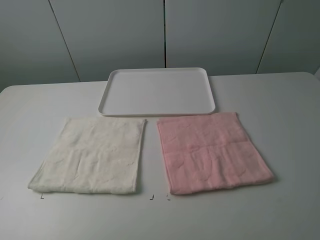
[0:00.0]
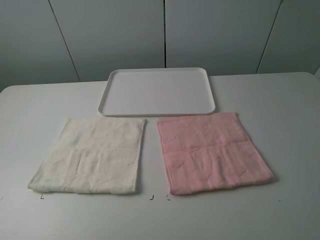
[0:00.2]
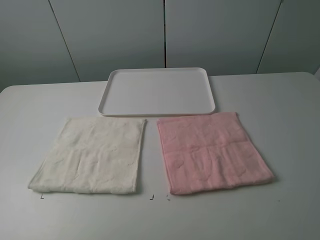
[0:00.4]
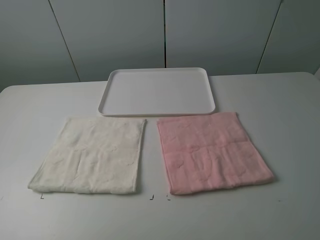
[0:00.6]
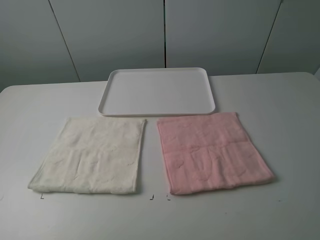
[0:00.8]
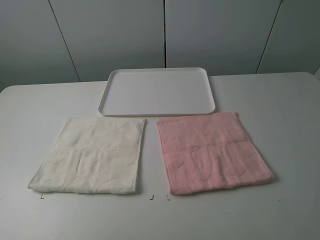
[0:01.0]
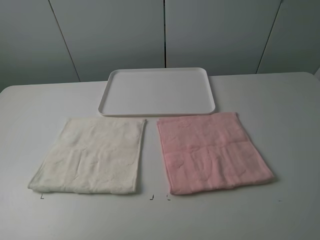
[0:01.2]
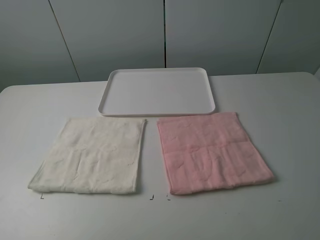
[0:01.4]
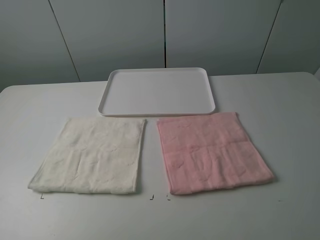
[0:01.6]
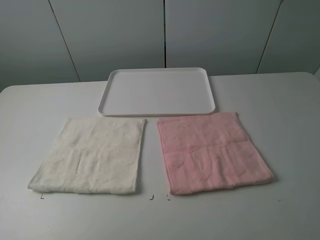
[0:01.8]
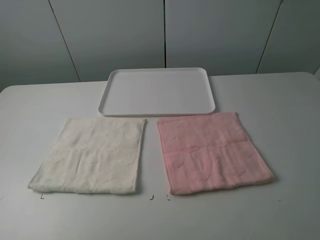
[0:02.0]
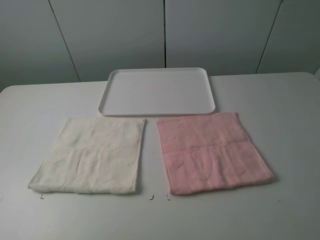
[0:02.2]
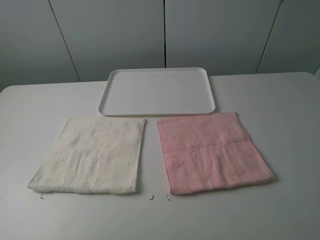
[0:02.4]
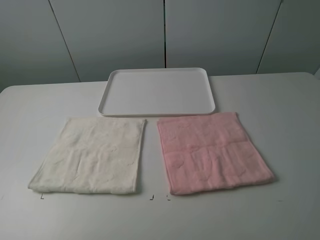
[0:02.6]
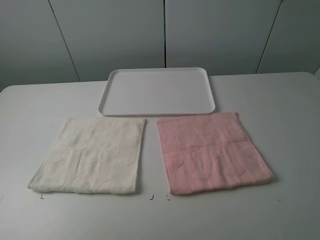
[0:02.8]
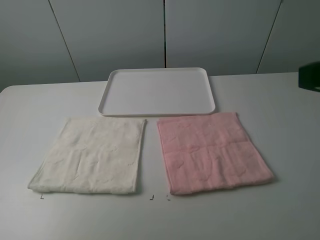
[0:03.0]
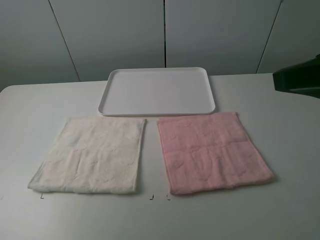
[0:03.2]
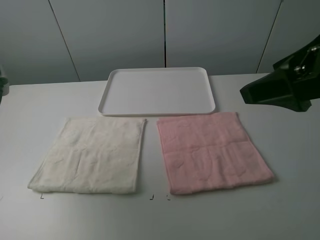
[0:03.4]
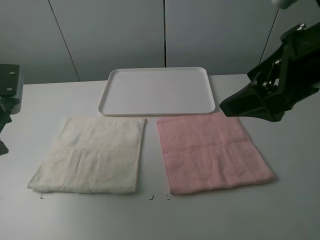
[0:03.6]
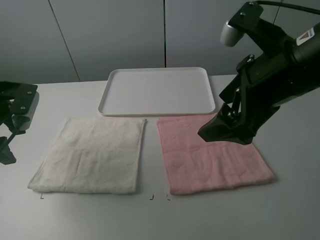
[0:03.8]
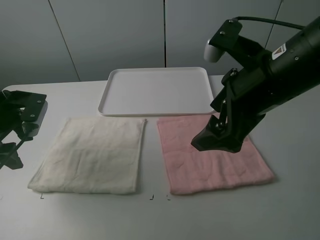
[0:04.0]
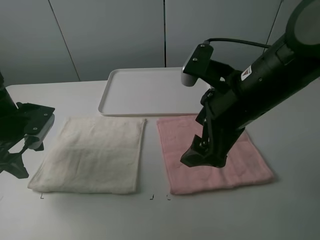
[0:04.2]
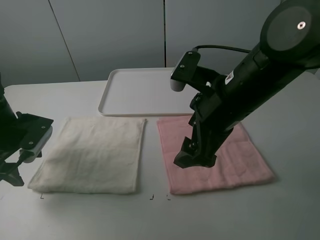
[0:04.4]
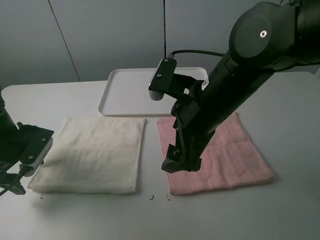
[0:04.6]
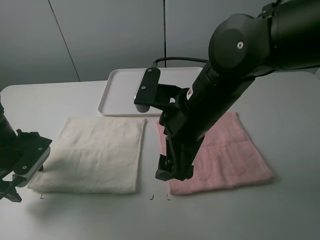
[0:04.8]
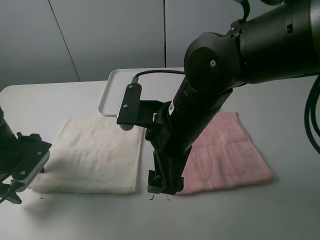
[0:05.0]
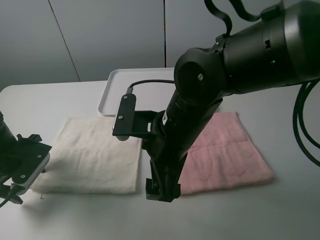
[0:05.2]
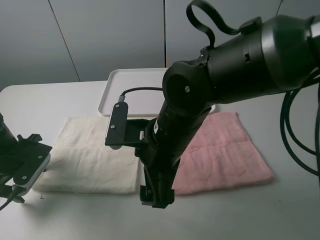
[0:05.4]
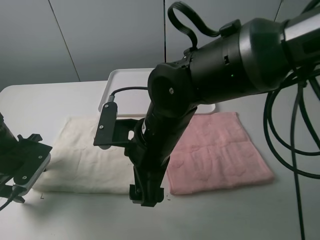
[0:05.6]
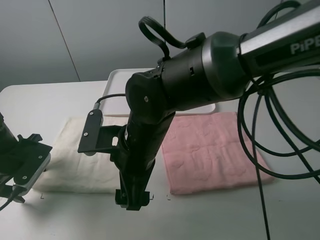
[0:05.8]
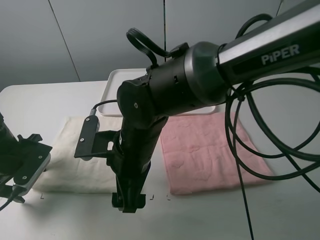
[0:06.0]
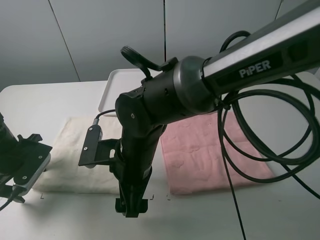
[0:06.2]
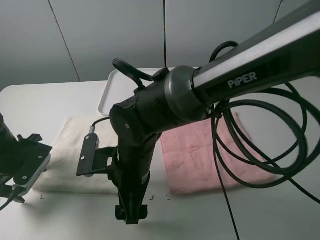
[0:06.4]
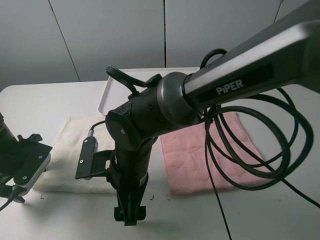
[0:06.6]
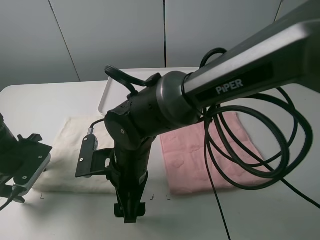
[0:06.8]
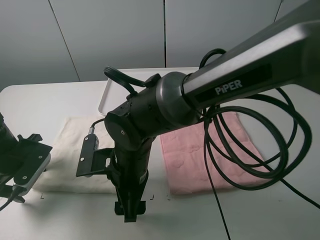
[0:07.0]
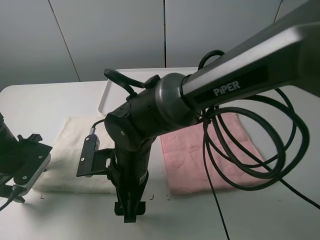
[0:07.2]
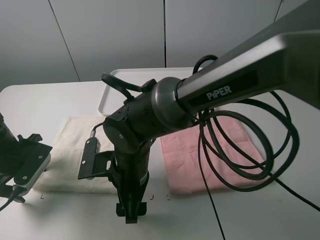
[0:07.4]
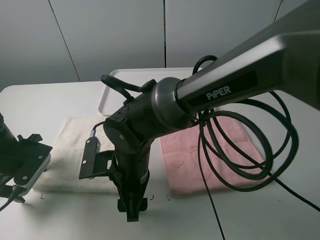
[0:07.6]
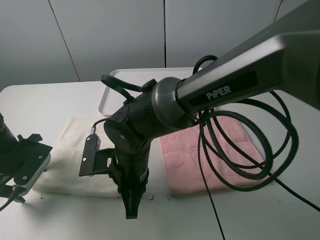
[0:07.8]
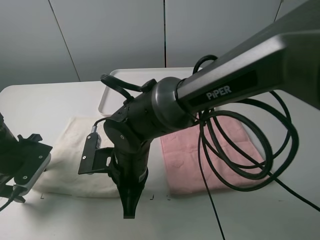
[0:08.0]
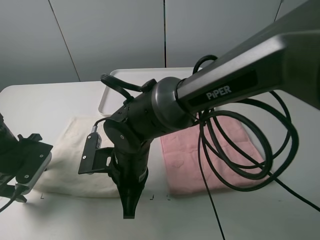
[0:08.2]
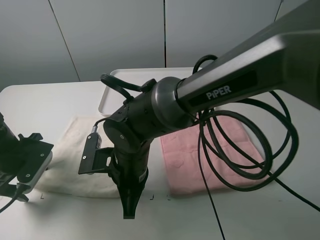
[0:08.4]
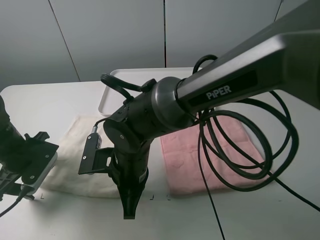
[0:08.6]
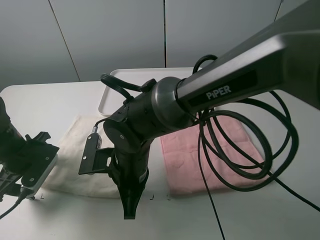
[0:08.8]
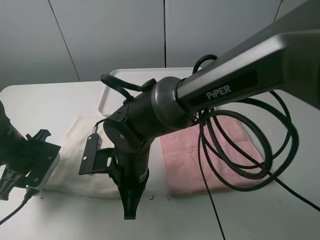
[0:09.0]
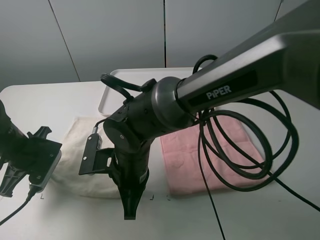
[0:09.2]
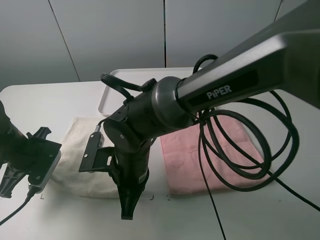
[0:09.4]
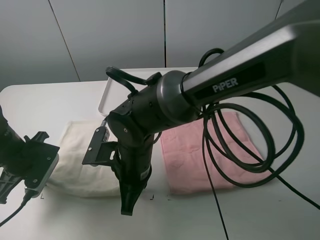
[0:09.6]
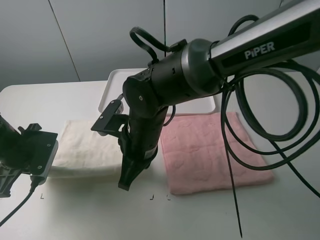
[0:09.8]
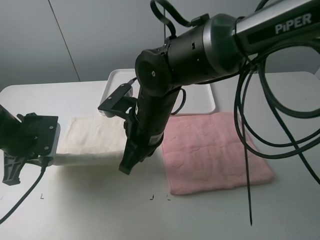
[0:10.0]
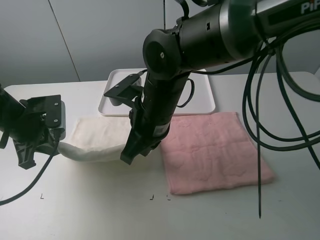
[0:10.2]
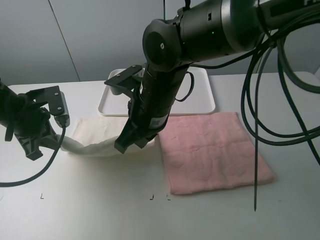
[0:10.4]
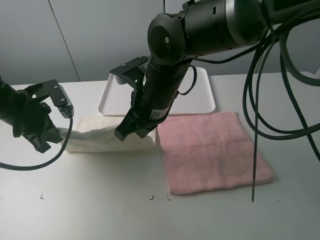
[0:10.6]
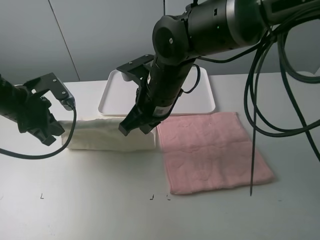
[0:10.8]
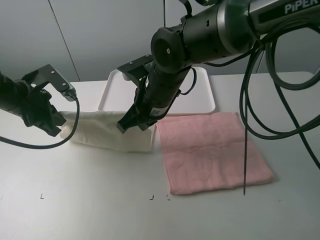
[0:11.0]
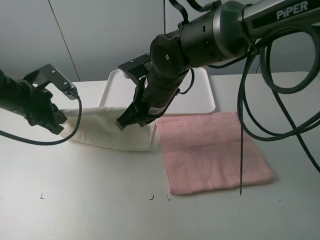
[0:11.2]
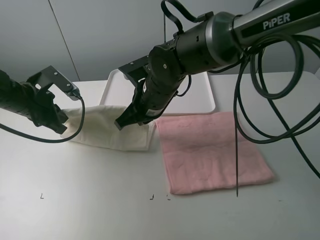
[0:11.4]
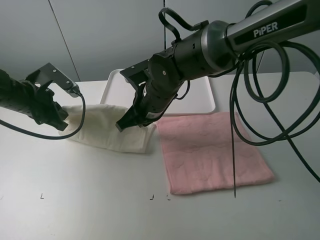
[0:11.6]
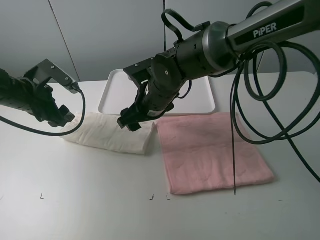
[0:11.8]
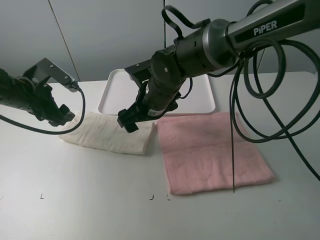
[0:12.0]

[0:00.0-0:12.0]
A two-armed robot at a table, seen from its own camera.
Task of the whole recording: fold one of the towels by two grippers and place it on the tray,then fold another towel by two grippers and place it on the folded towel.
Step, 0:00.0 to 0:08.4: Grasp the white towel with the left gripper.
Step, 0:08.6 to 0:12.0: Fold the white towel upwards with the right gripper.
0:00.0 to 0:01.6: Neither gripper changes place.
0:01.6 to 0:03.0: The right gripper shifts about 10 cm forward and upward.
0:03.0 to 0:04.4: The right gripper travels to the left, downward and forward by approximately 20 cm. Meanwhile the left gripper goes about 25 cm downward and forward.
0:04.4 to 0:06.0: The right gripper is displaced to the left and downward by some 15 cm.
0:07.6 to 0:09.0: The right gripper closes. Meanwhile the left gripper closes up.
0:09.0 to 0:10.4: The left gripper is displaced upward by roughly 5 cm, and closes up; the right gripper travels upward and forward by approximately 10 cm.
0:10.4 to 0:12.0: The left gripper opens up. The right gripper goes approximately 5 cm forward, and opens its fingers.

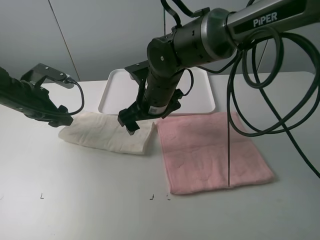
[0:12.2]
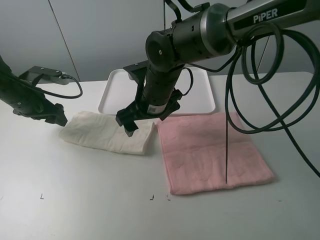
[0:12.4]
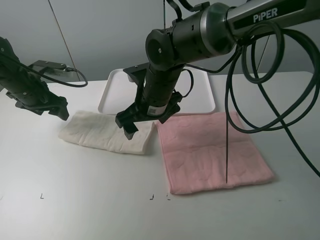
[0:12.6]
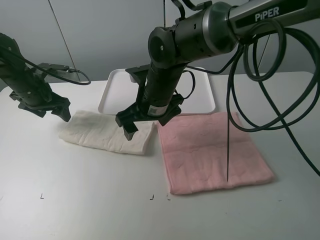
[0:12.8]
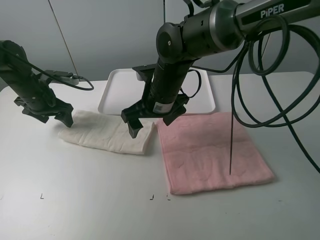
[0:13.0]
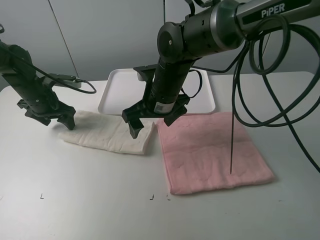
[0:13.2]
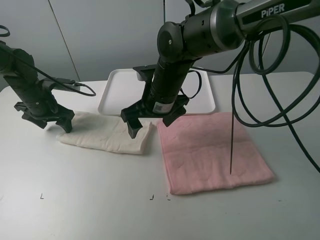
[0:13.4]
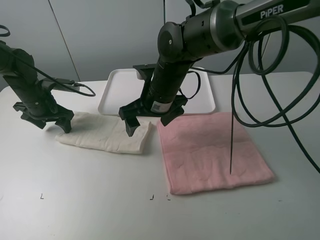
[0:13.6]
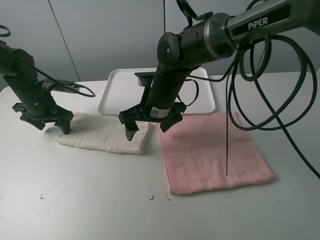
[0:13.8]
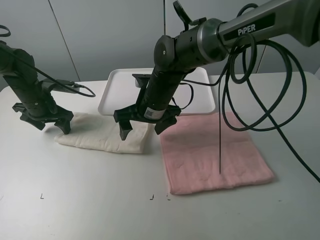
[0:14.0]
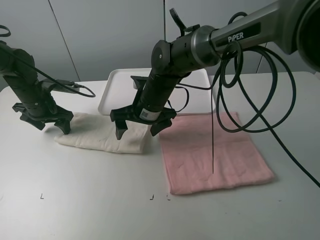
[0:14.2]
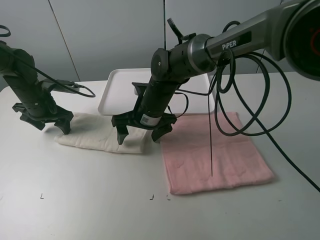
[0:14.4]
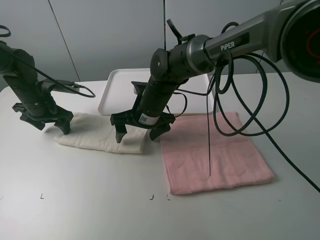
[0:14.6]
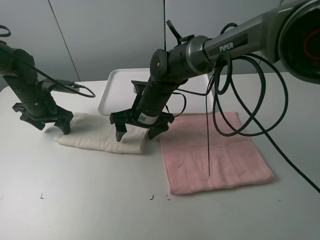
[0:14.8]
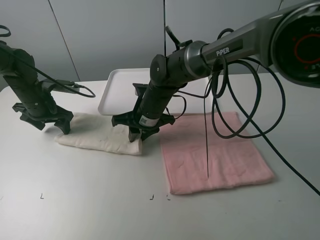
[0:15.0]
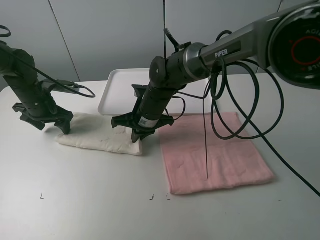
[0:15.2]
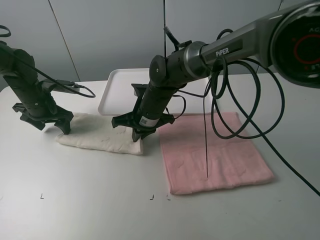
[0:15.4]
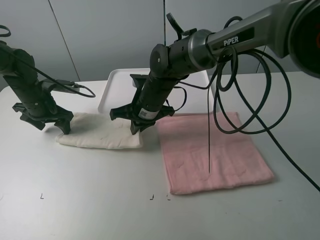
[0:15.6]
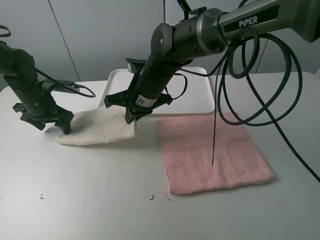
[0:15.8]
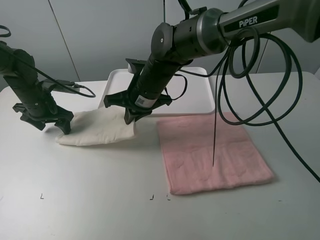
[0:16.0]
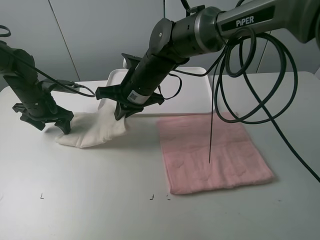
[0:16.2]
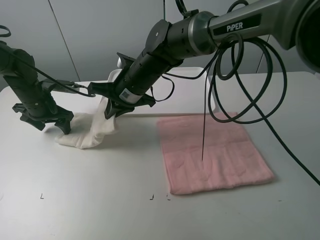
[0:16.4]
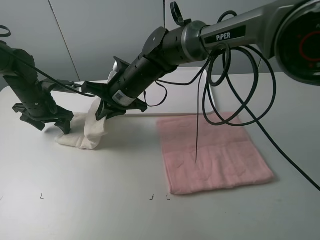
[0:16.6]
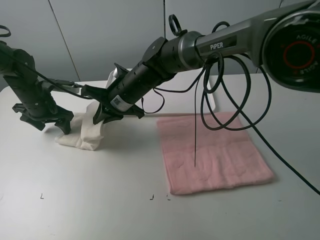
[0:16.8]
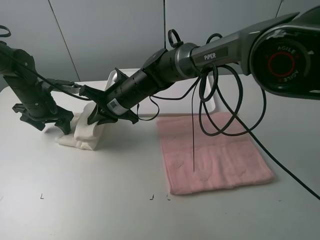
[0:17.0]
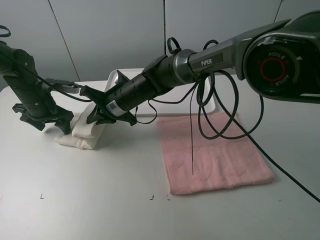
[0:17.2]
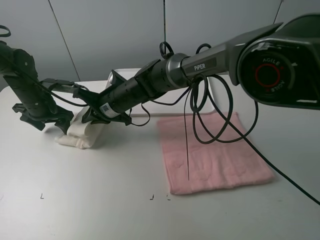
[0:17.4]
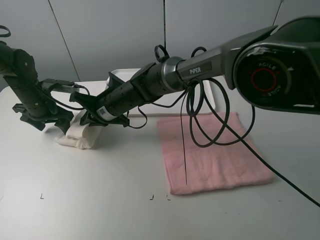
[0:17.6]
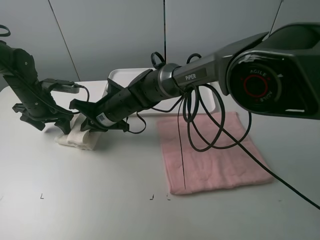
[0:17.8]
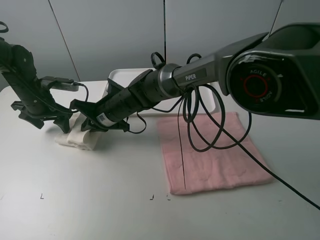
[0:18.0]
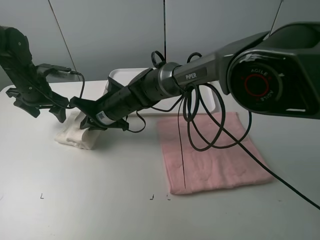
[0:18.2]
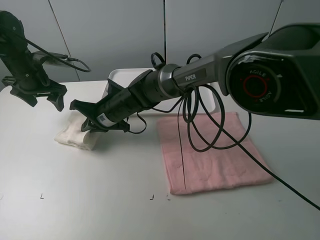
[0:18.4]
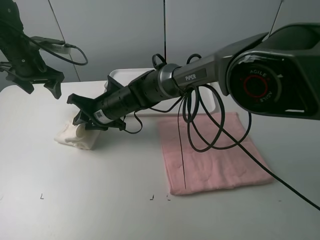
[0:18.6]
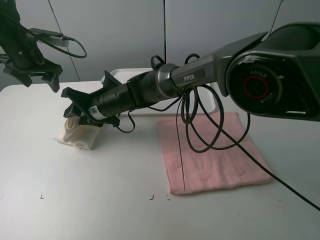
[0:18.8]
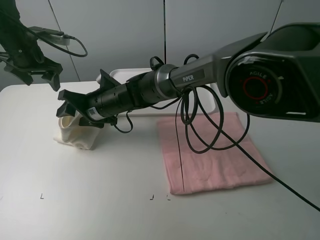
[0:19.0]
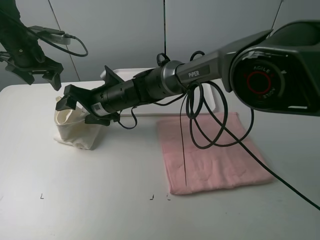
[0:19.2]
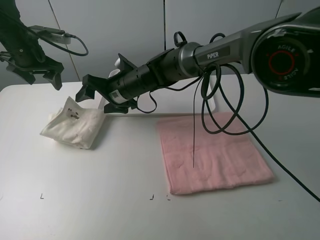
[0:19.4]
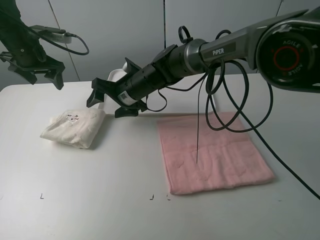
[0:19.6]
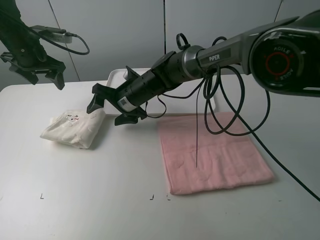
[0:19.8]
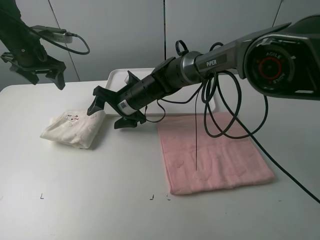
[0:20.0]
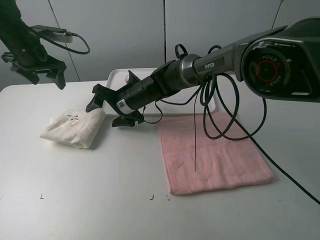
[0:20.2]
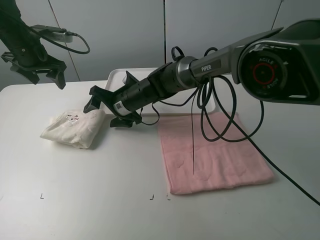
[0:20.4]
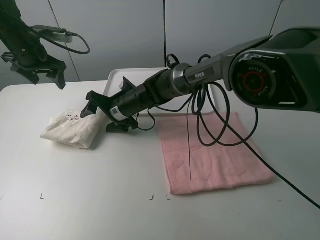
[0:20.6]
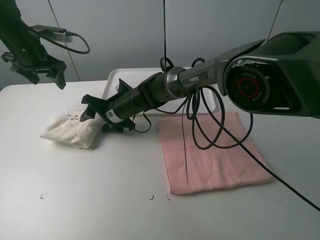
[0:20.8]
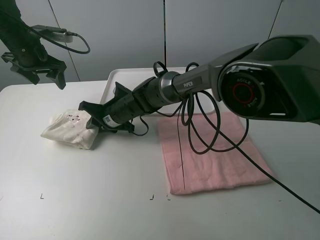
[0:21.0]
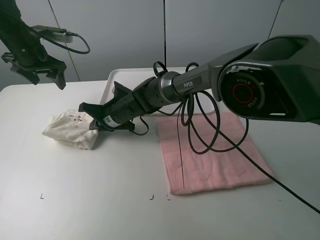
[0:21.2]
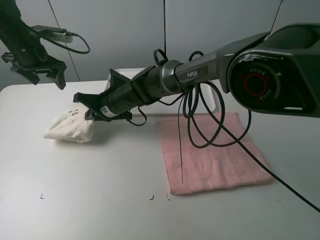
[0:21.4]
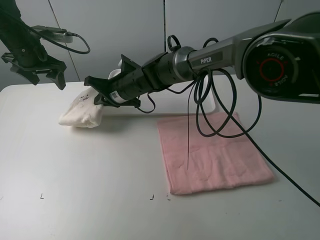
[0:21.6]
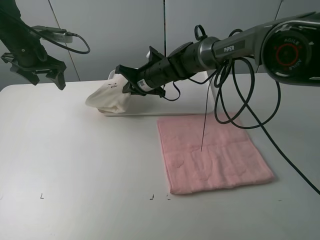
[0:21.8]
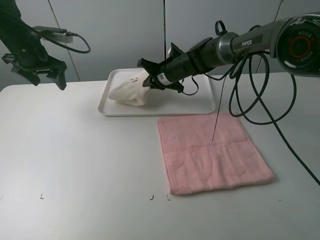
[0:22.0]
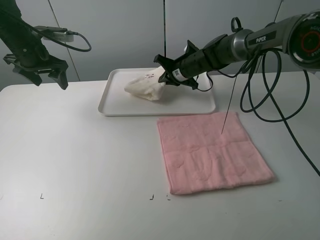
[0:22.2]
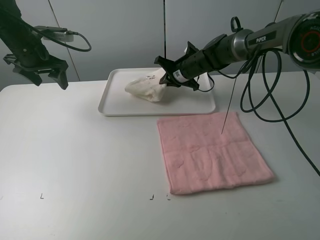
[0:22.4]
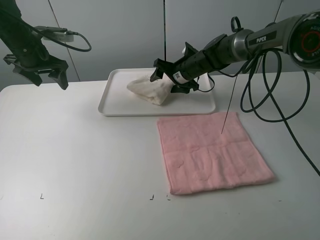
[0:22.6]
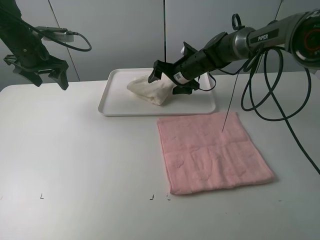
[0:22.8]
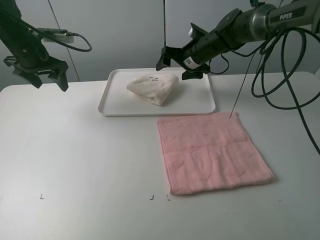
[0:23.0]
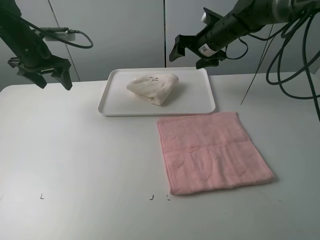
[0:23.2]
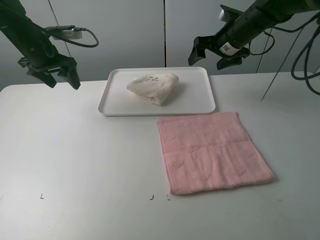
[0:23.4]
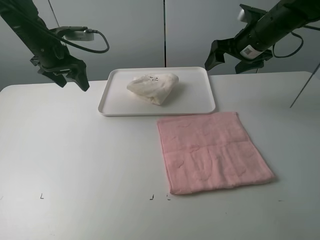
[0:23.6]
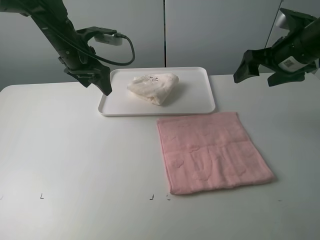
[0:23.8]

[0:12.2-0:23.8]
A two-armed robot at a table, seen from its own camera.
Task of the whole recording: fold one of the towels by two grippers and place it on the tray,then fold another towel by two grippers and place it on the folded towel.
Step, 0:12.2 to 0:13.8: Press the white towel with the left gripper.
Step, 0:14.0 to 0:15.0: Grasp the white towel with the right gripper.
Step, 0:15.2 to 0:19.6: Fold the white towel from right to left with right gripper.
Step, 0:19.8 to 0:21.0: Grasp the white towel with the right gripper.
Step, 0:21.2 to 0:22.6: Move the white towel to the plate with the right gripper.
0:12.2 to 0:13.6: The left gripper ends up roughly 5 cm from where it was.
0:13.6 to 0:15.0: The right gripper goes about 5 cm downward, and closes its fingers.
0:15.0 to 0:16.6: The right gripper goes about 5 cm upward.
0:16.6 to 0:18.0: The right gripper heads downward, covering approximately 5 cm.
0:18.0 to 0:19.4: The left gripper goes some 10 cm upward. Meanwhile the right gripper changes place by some 5 cm, and opens.
0:19.4 to 0:21.0: The right gripper heads downward, covering about 5 cm, and closes.
0:21.0 to 0:22.4: The right gripper travels to the right and forward by roughly 20 cm.
0:22.4 to 0:23.8: The left gripper heads to the right, covering approximately 15 cm; the right gripper goes about 30 cm to the right, backward and upward, and opens up.
